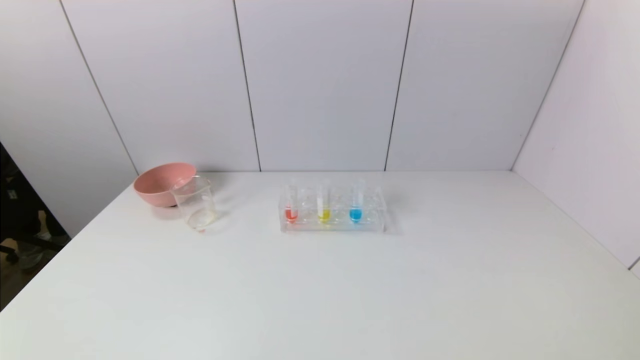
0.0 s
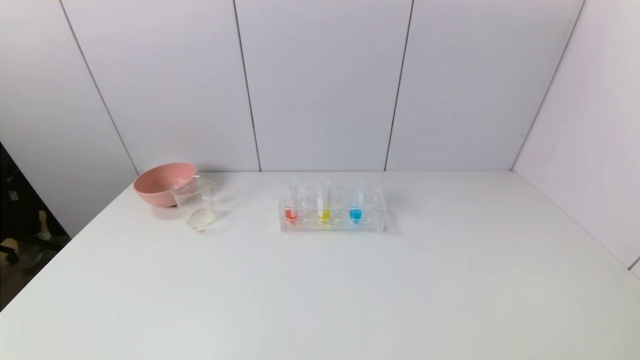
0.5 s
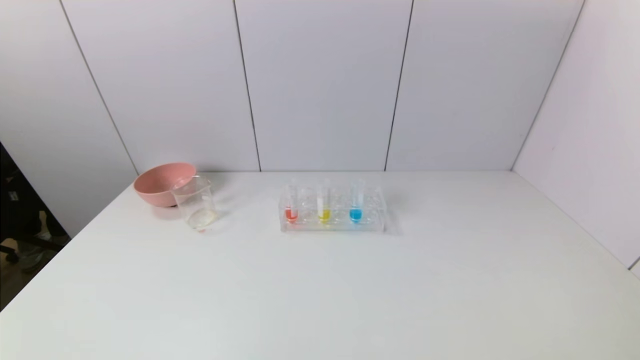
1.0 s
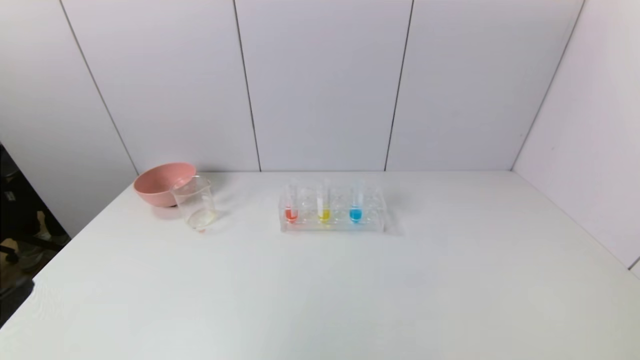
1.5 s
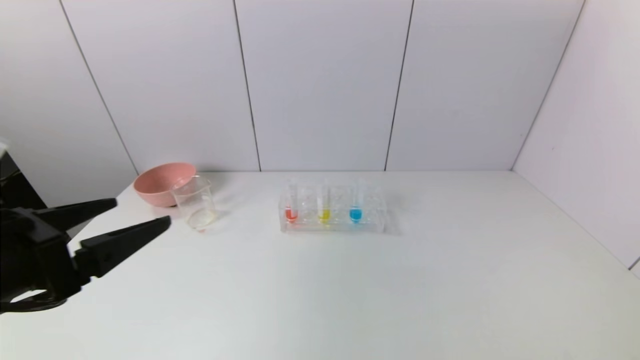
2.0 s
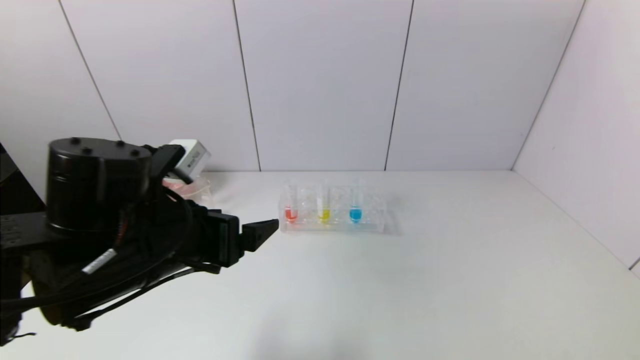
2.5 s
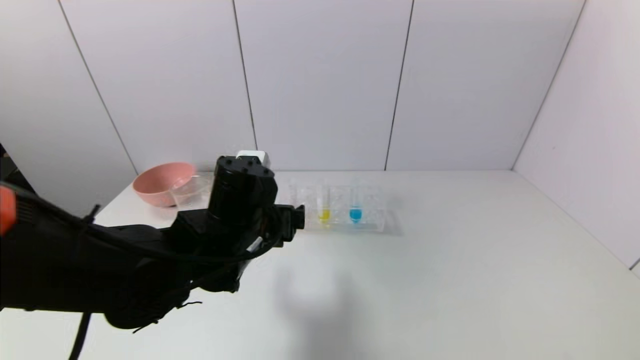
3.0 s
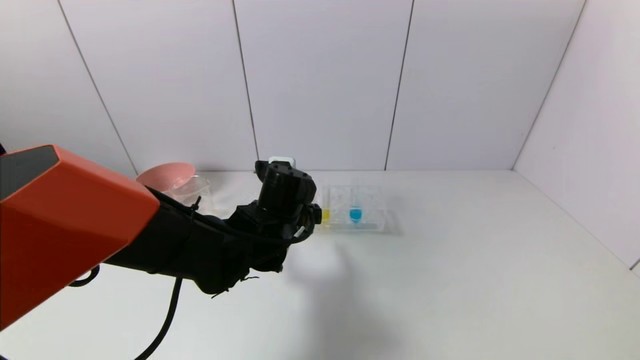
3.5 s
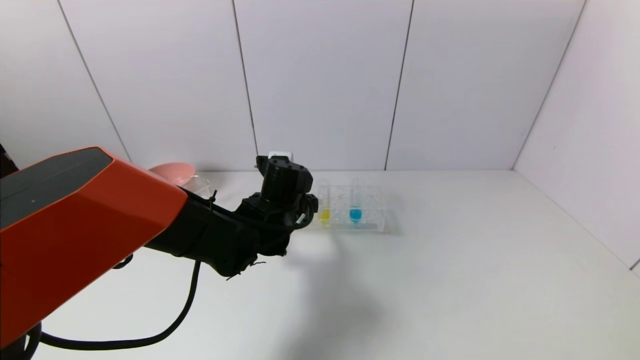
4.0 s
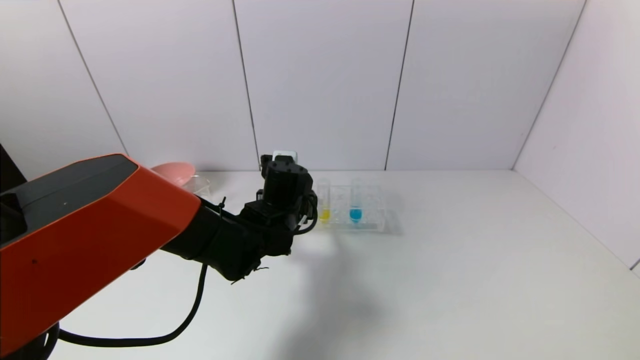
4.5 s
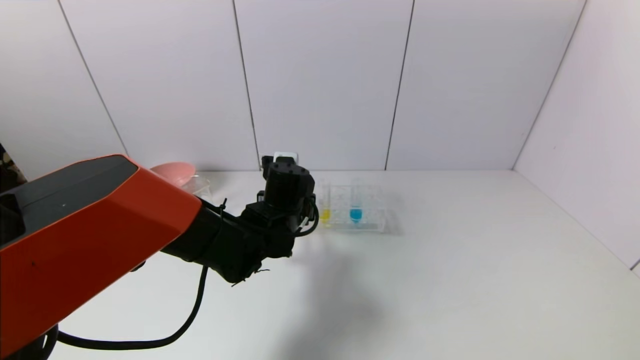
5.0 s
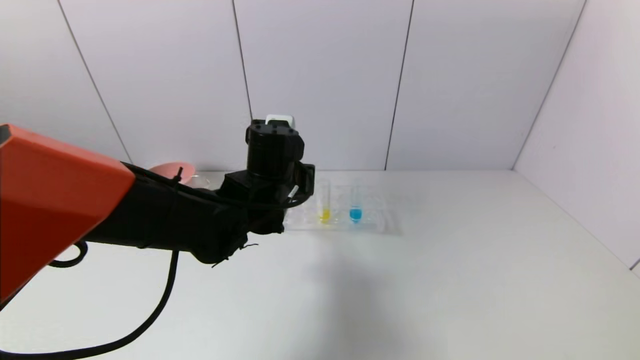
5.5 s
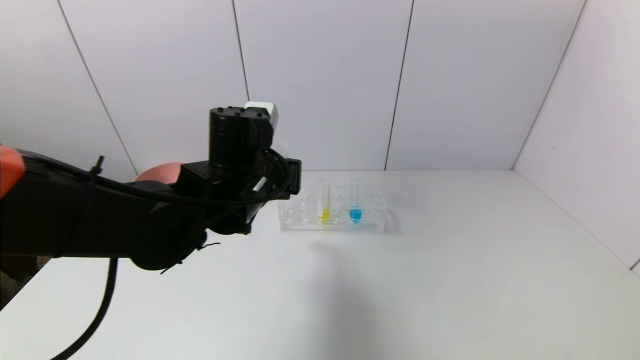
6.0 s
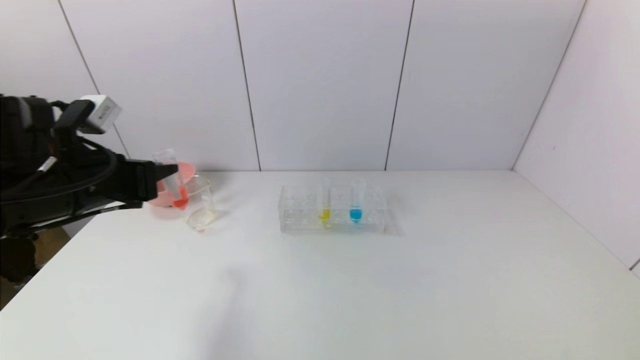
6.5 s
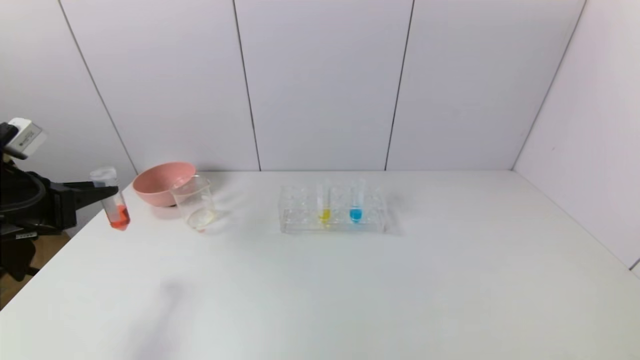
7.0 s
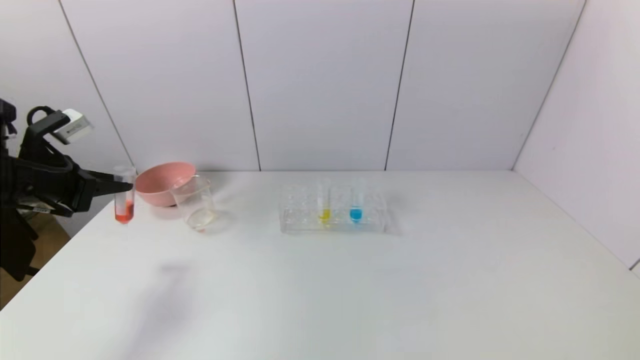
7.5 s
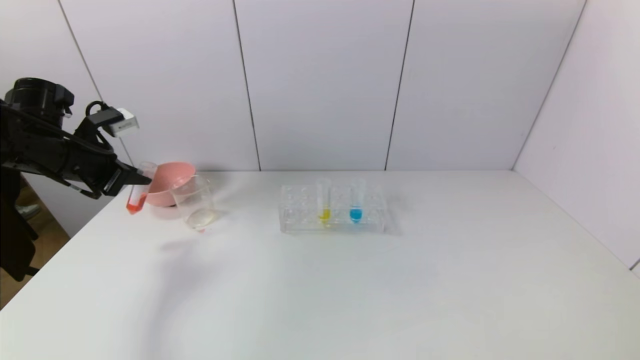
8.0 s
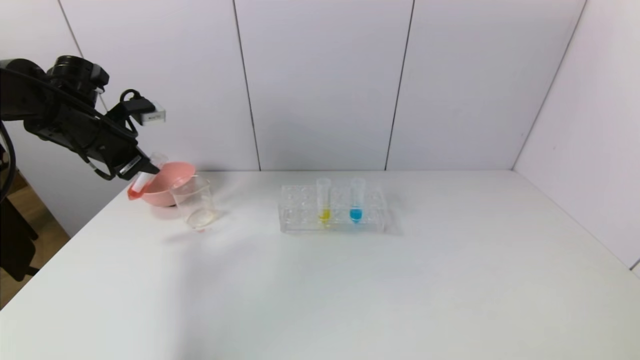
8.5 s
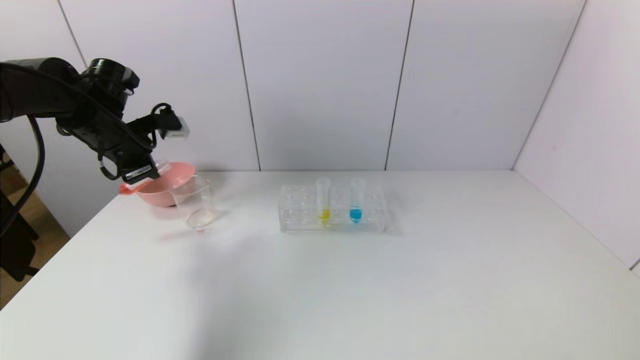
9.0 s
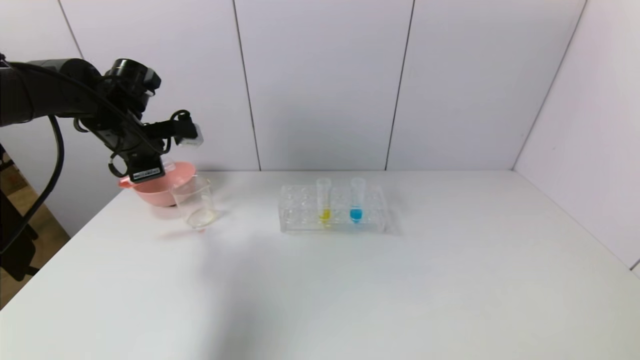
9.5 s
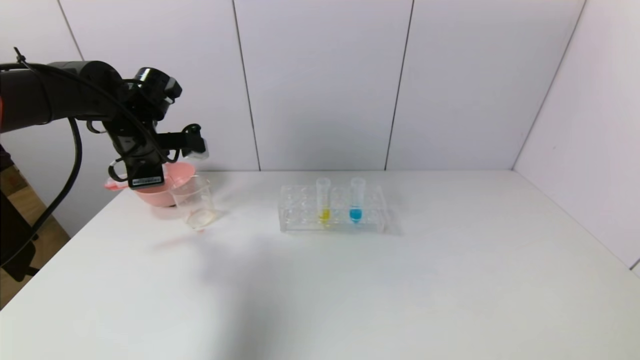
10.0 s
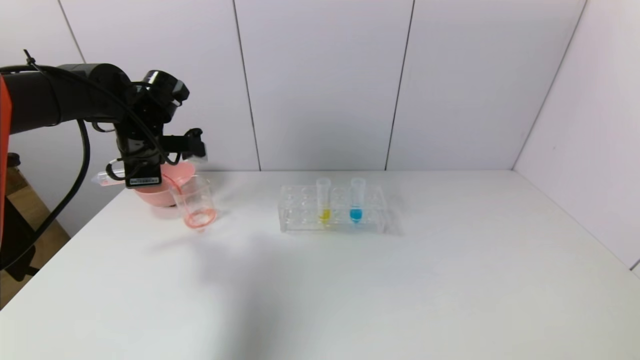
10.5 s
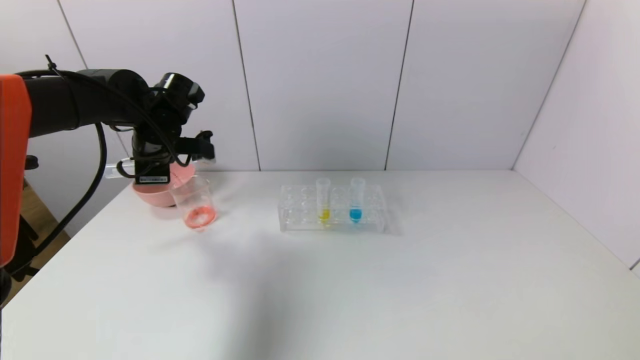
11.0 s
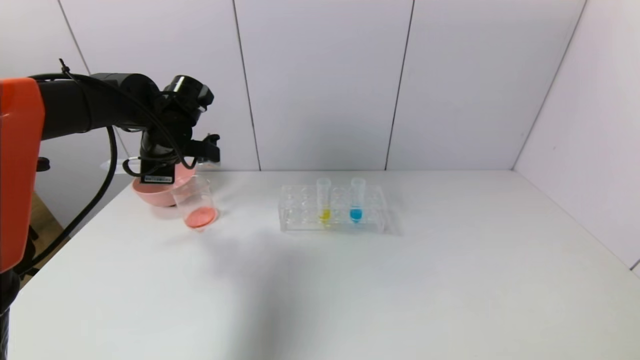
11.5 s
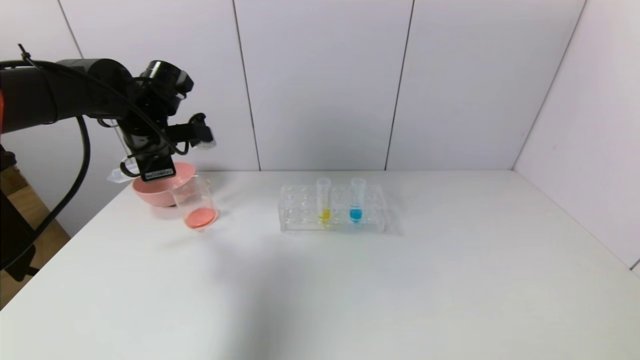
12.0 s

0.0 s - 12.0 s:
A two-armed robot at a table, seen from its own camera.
Task of the whole recording: pick up the test tube with yellow pigment and the test tube with red pigment by grippers and pour them into the beaker.
Step, 0.0 s - 4.5 s: Grasp the red reagent with the left gripper.
Step, 5.0 s - 11.5 s: Pour the red reagent into the graduated cylinder with the left gripper.
0.0 s - 2.0 s: The left gripper shifts roughly 20 cm upward and forward.
2.0 s - 4.0 s: The left gripper moves forward, to the right and downward, roughly 30 cm.
4.0 s - 6.0 s: The left gripper heads upward, covering roughly 10 cm, and closes.
6.0 s - 8.0 s: The left gripper is displaced to the left by approximately 30 cm.
8.0 s - 10.0 s: The left gripper heads to the right, covering roughly 10 cm.
10.0 s - 12.0 s: The grippers move only a little.

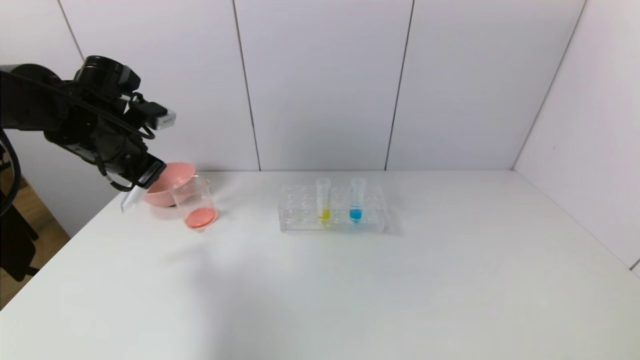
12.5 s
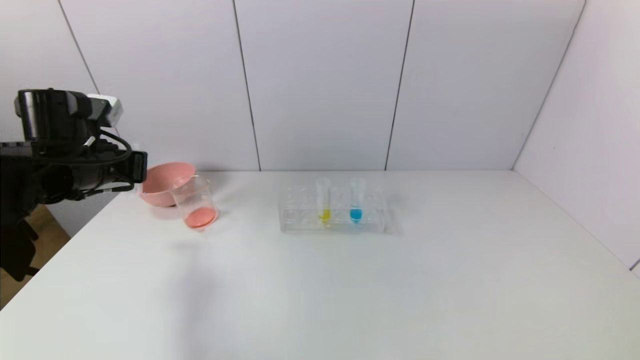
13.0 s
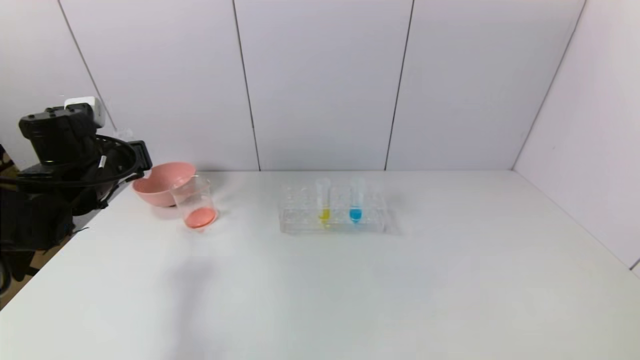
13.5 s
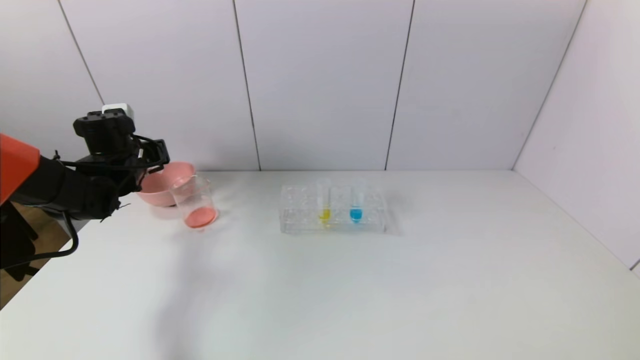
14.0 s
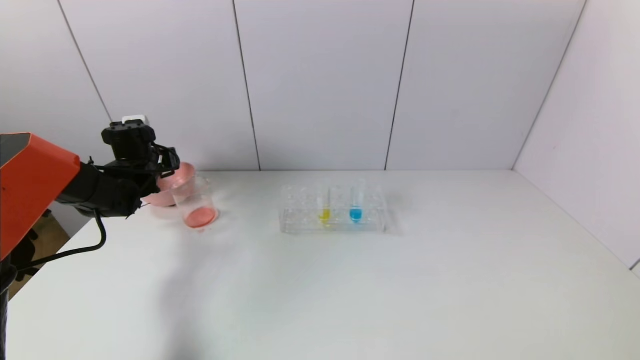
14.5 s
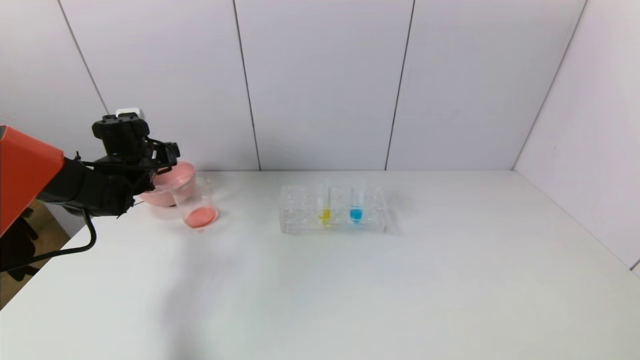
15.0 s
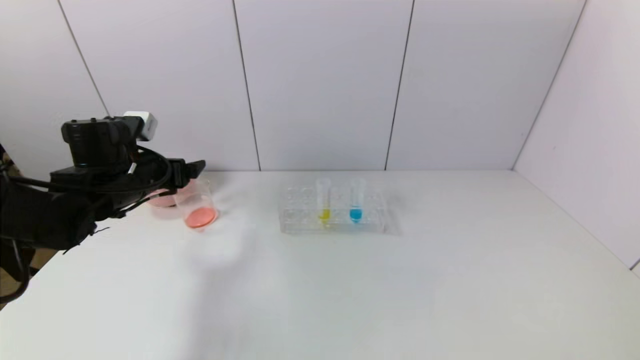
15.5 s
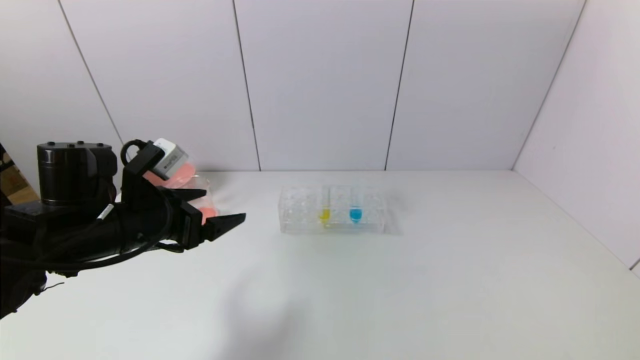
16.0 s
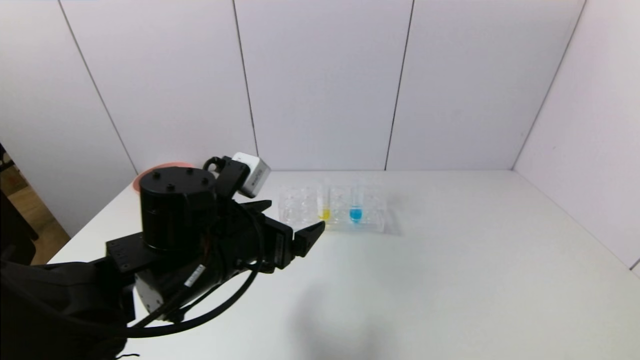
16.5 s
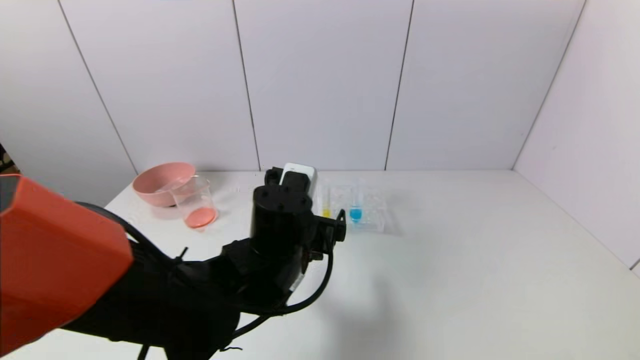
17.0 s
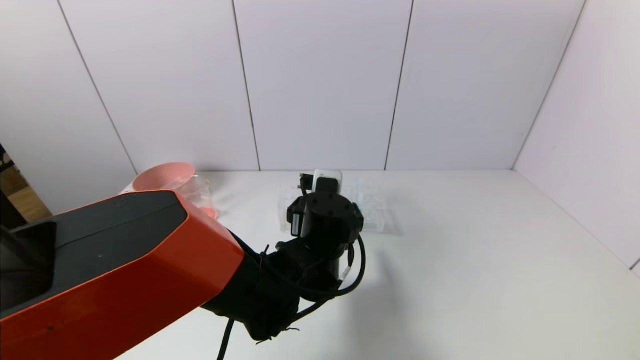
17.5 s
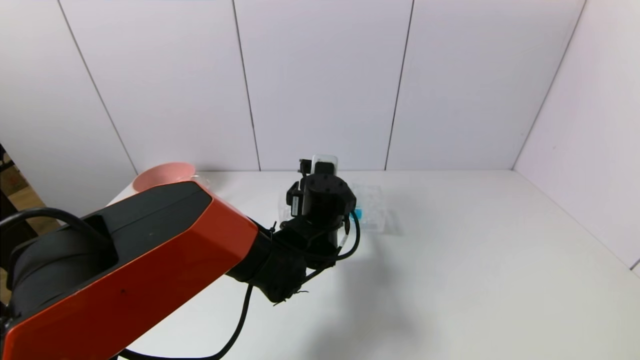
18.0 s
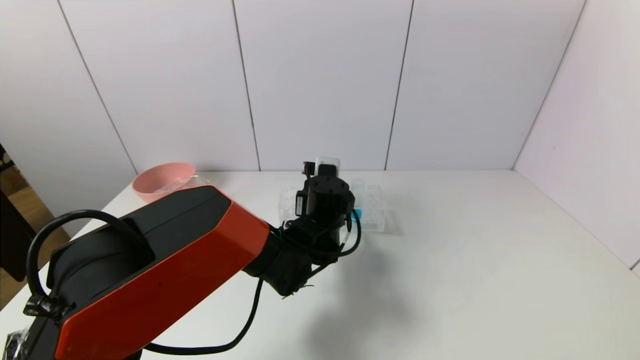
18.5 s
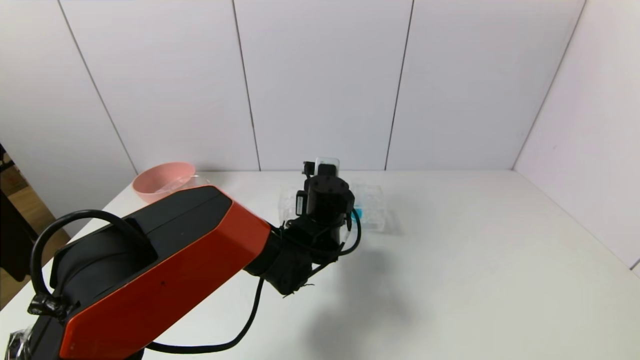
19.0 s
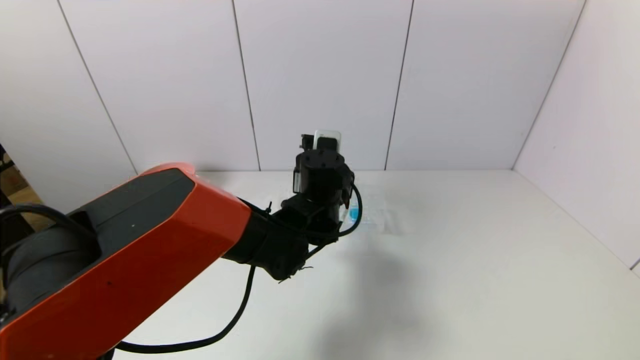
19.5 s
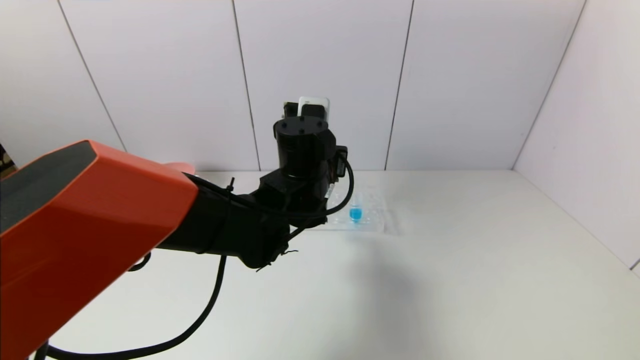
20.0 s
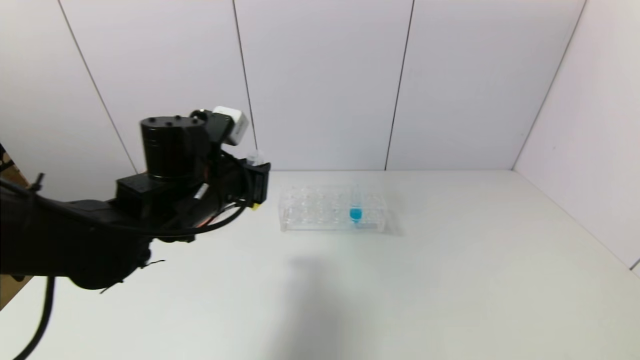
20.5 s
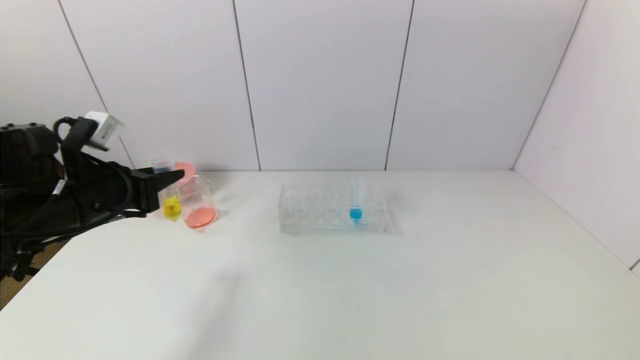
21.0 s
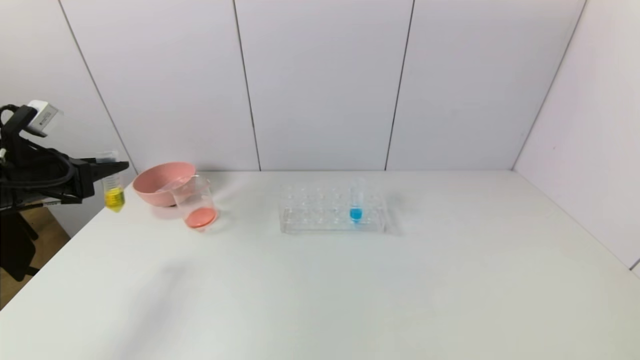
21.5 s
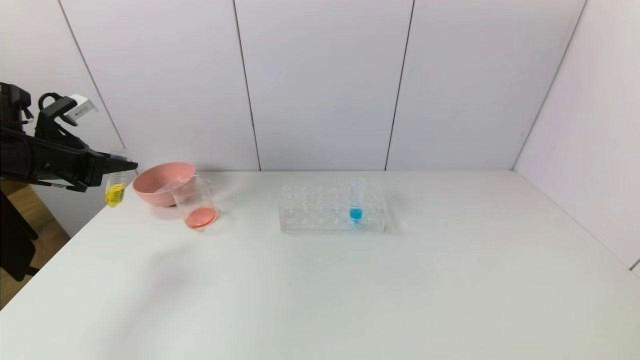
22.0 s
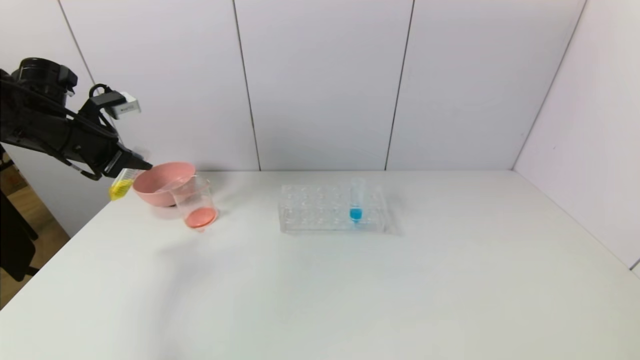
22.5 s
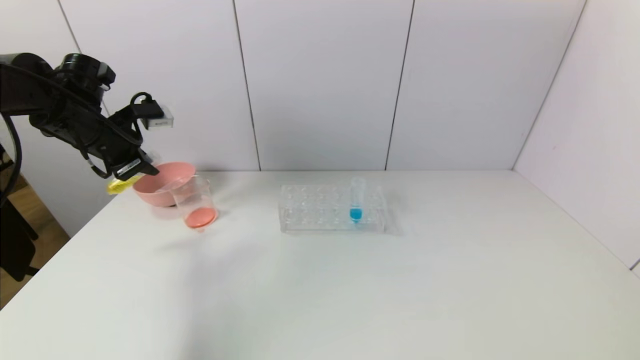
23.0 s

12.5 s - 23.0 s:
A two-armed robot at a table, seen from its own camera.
Task of the whole recording: pick up the test tube with yellow pigment and the test tube with red pigment by grippers and pour them into the beaker.
Step, 12.5 s - 15.0 s: Place the test tube into the pink bowl with the left gripper.
Step, 15.5 s - 18.5 s: Grasp the yellow reagent with the left gripper.
12.5 s - 14.5 s: The left gripper is displaced downward and forward by some 15 cm.
14.5 s - 16.5 s: The left gripper travels backward and to the right by approximately 30 cm, and opens up.
16.5 s - 19.0 s: The left gripper travels forward, to the right and downward by about 20 cm, and closes its fingers.
19.0 s - 21.0 s: The left gripper goes about 30 cm to the left.
21.0 s - 23.0 s: The left gripper heads forward and upward, covering about 15 cm.
